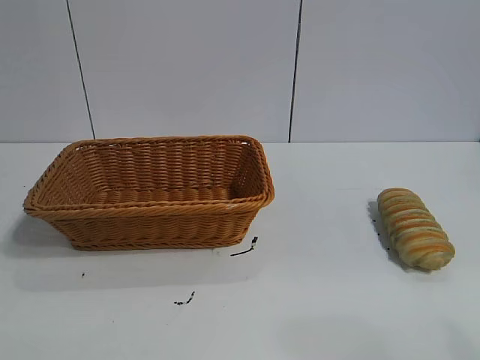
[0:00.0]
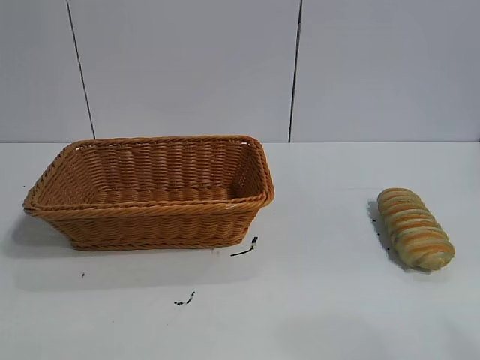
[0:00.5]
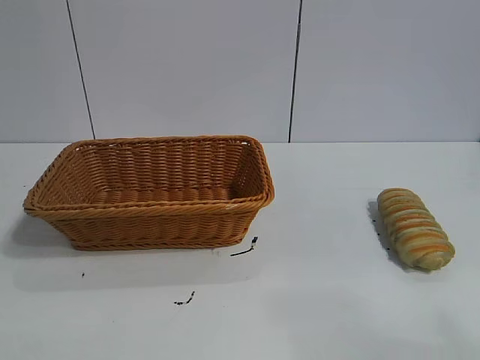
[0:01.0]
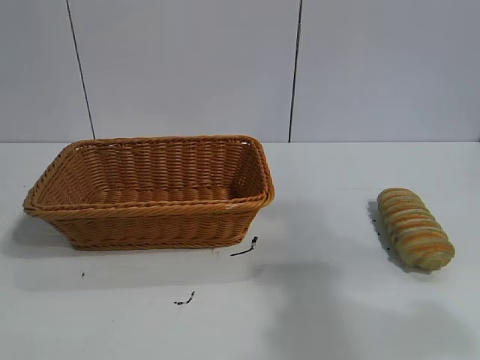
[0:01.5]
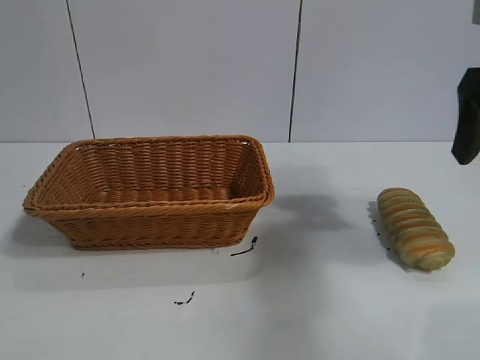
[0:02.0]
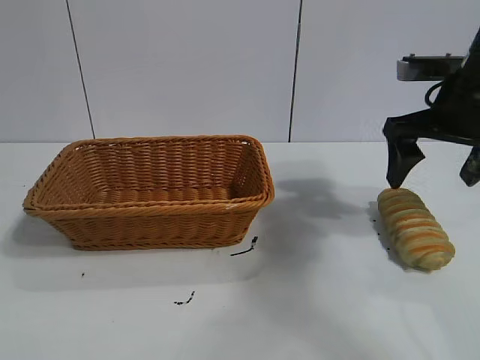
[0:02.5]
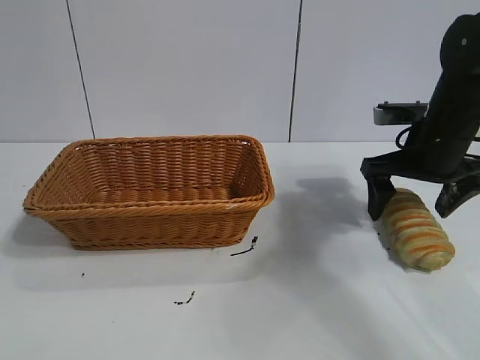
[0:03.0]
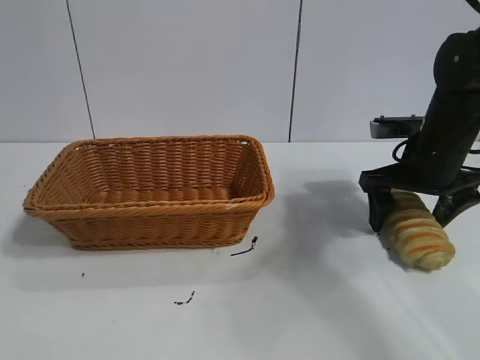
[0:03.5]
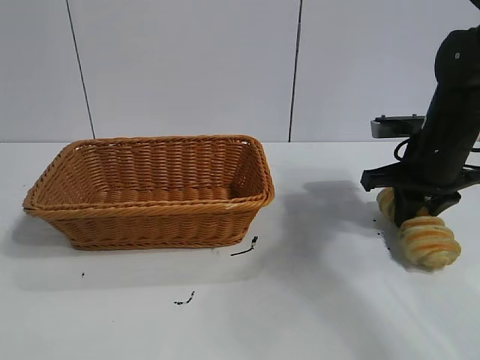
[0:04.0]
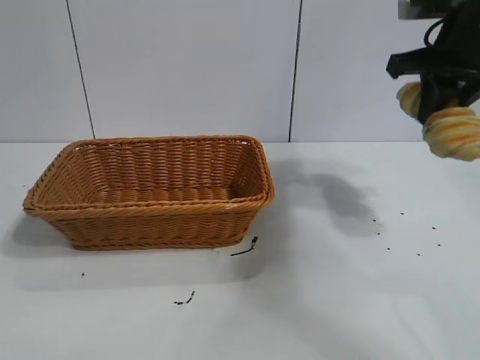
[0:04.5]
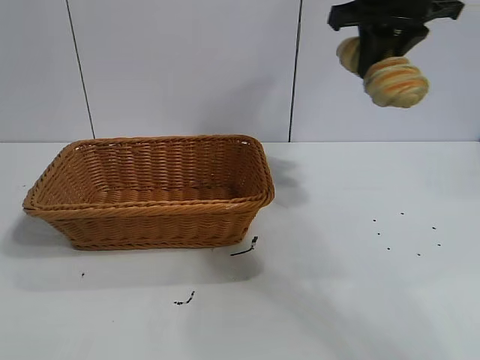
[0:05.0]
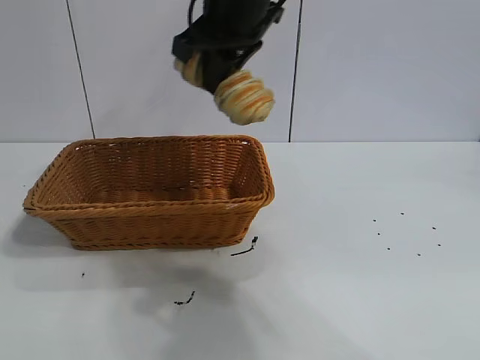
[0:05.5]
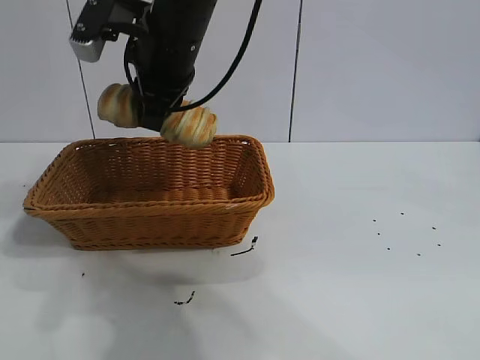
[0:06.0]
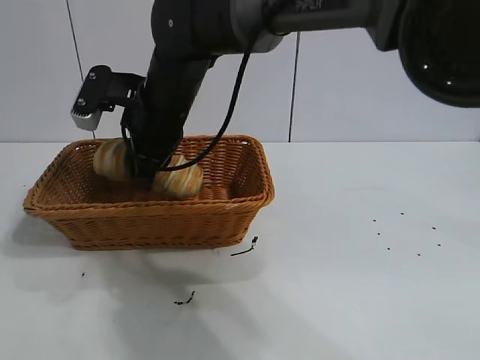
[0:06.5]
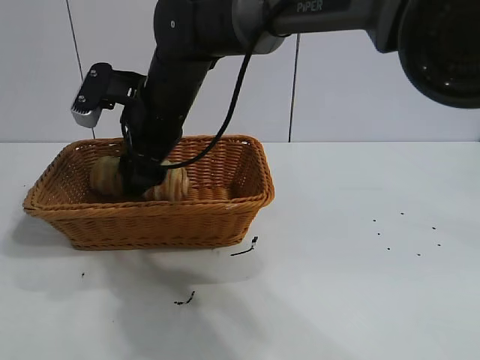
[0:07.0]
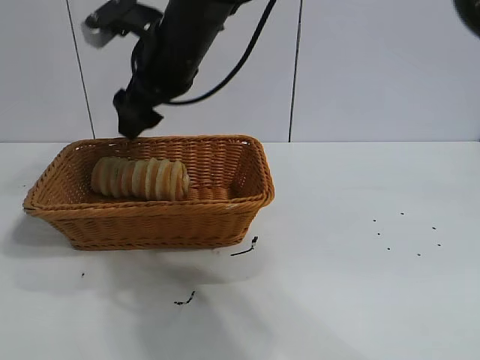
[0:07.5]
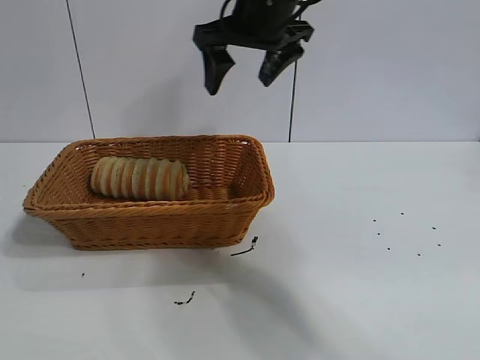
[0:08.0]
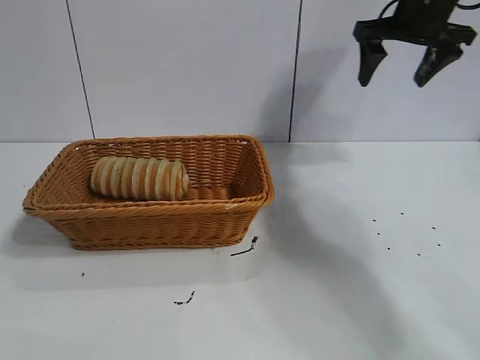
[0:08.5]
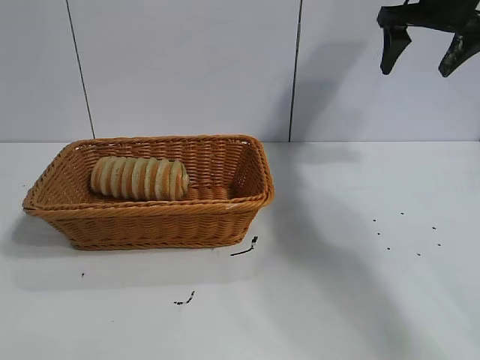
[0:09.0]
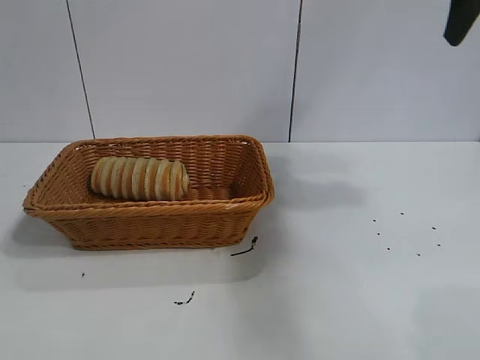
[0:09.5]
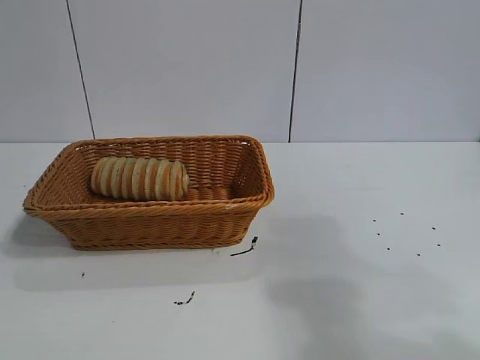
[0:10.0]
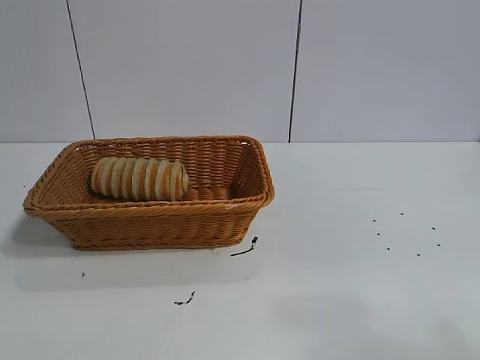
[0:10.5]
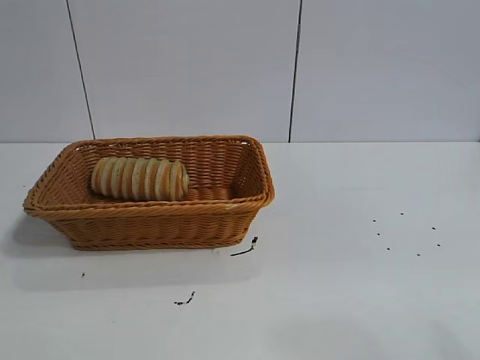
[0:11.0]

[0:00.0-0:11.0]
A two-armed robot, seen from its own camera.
Task of the whole recording: pick up the long bread and put it into the basket.
Step, 0:02.0 to 0:03.5: Grasp the long bread with right gripper.
Step, 0:04.5 to 0:07.0: Place the long bread in the basket with right gripper.
